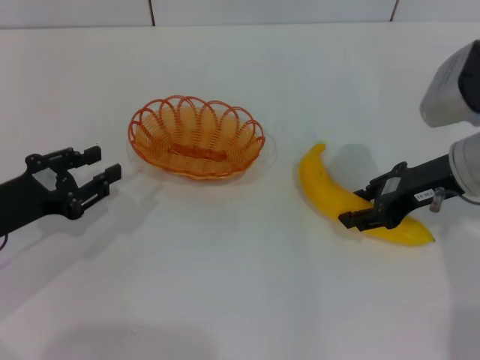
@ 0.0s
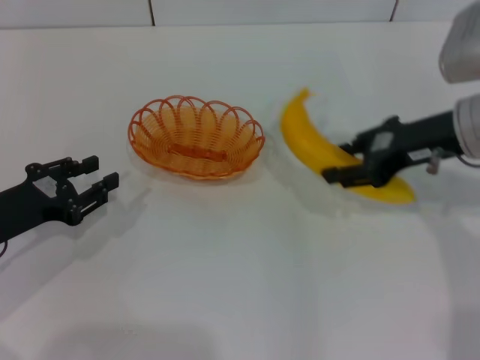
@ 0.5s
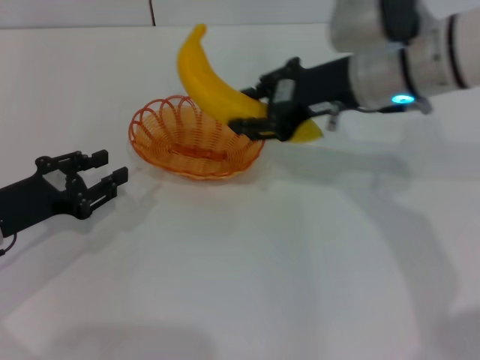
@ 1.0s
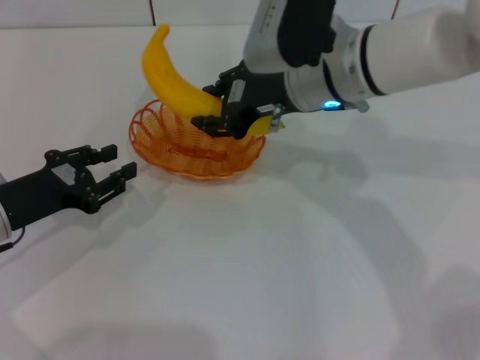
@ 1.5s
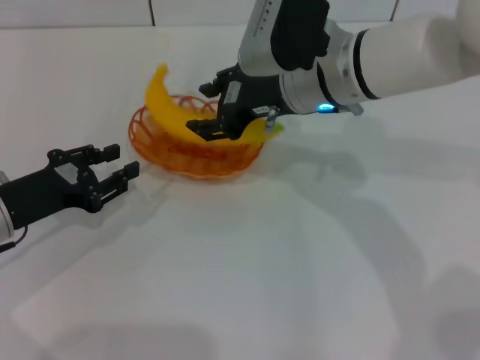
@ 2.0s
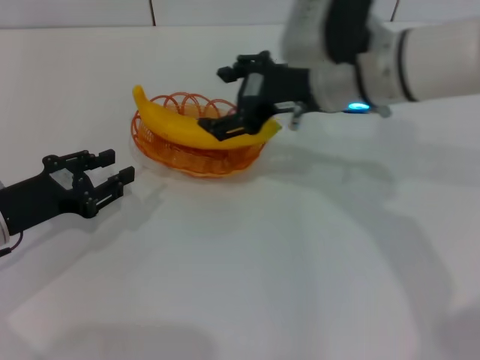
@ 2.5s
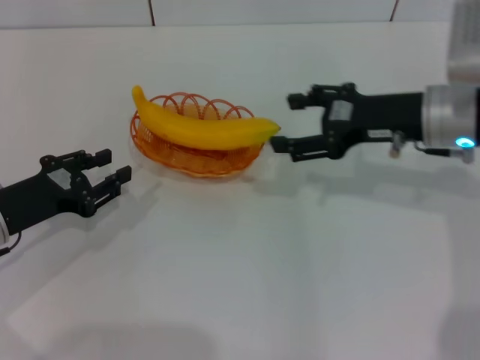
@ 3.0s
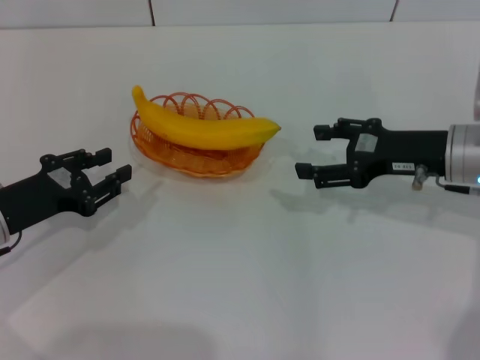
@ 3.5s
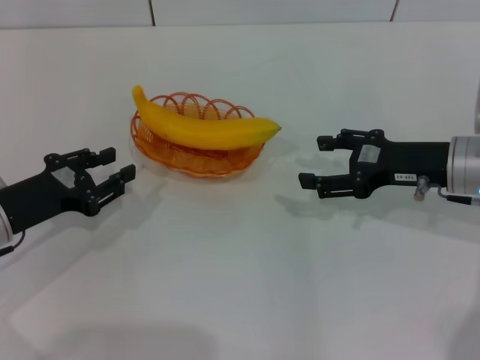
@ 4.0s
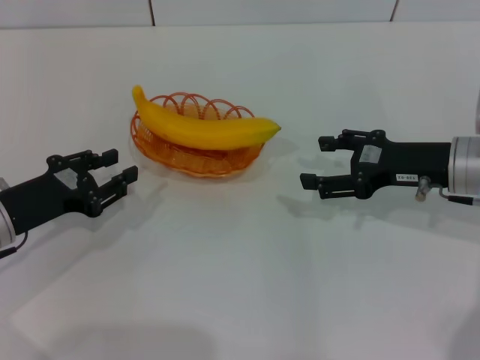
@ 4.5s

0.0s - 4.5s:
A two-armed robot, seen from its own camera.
Step, 0.5s - 2.0s: Place the banana into the basket with the right gripper.
0.0s - 2.0s: The right gripper travels to the left and forward by about 15 cm.
2.0s - 4.5s: The right gripper is displaced to the right, backward and downward by about 20 cm, and opens.

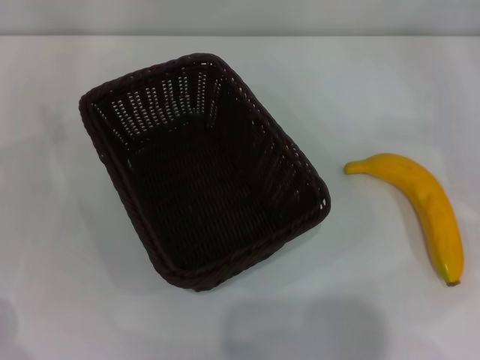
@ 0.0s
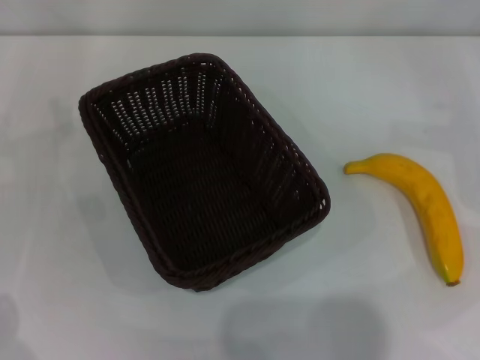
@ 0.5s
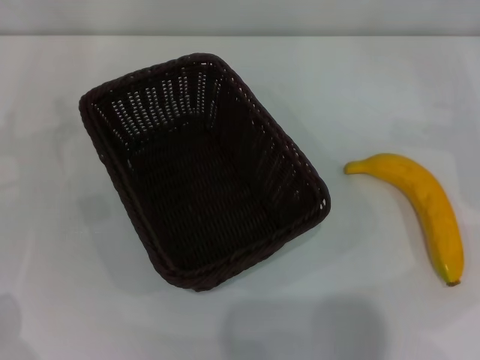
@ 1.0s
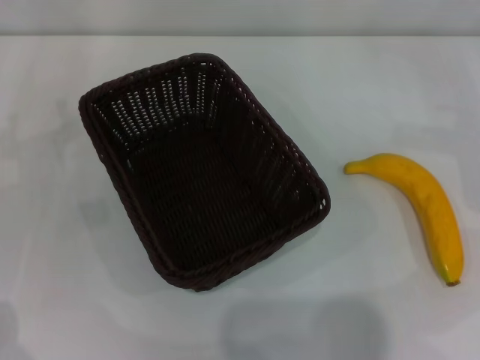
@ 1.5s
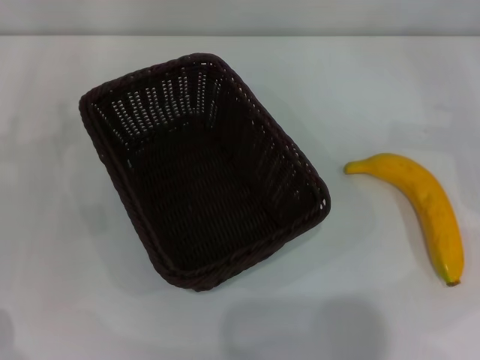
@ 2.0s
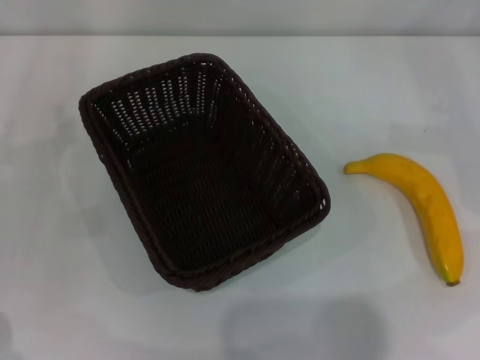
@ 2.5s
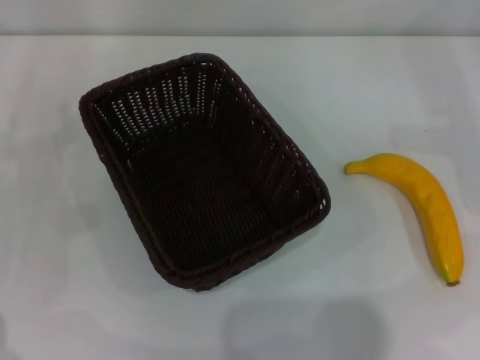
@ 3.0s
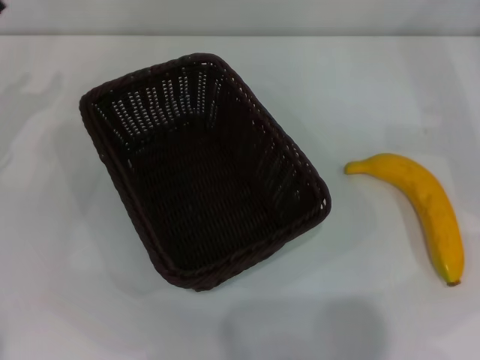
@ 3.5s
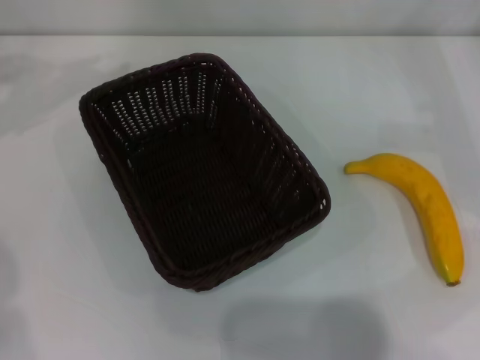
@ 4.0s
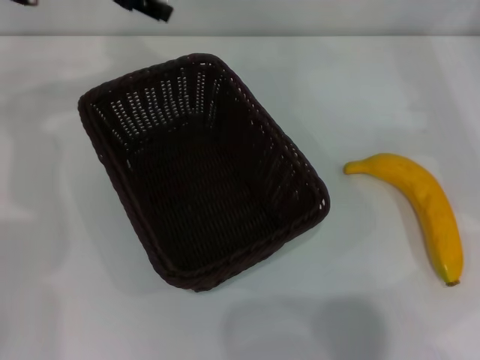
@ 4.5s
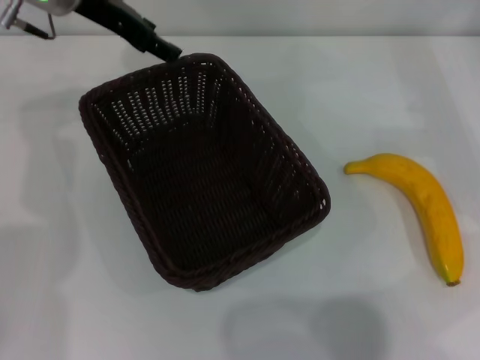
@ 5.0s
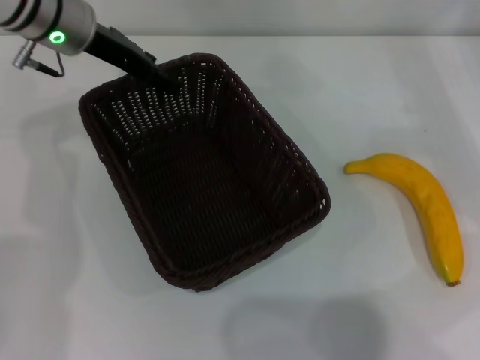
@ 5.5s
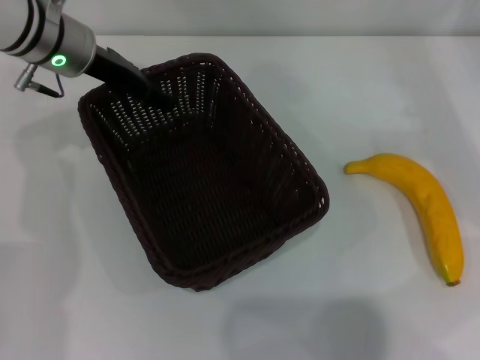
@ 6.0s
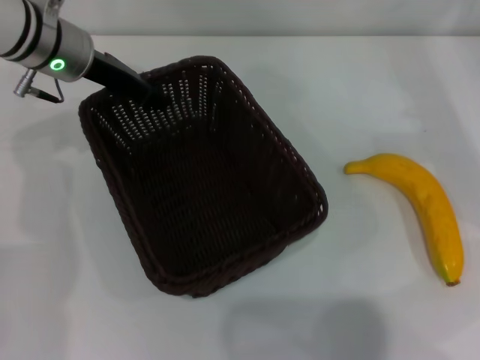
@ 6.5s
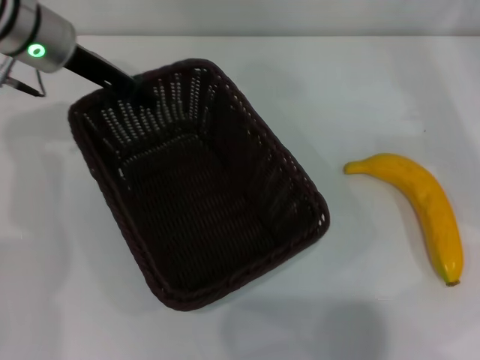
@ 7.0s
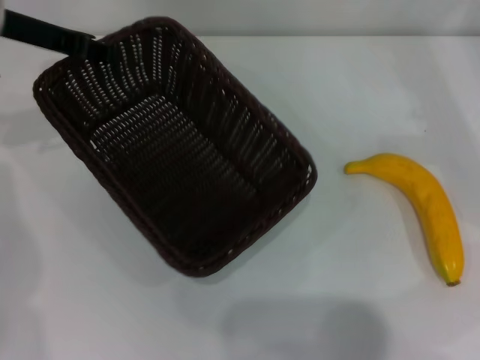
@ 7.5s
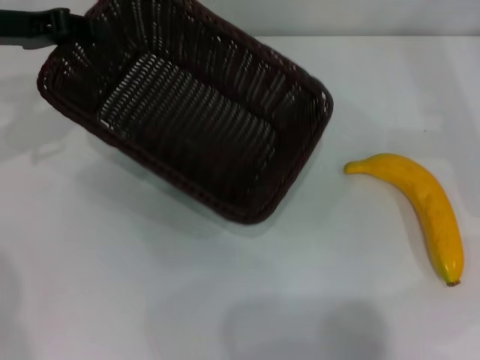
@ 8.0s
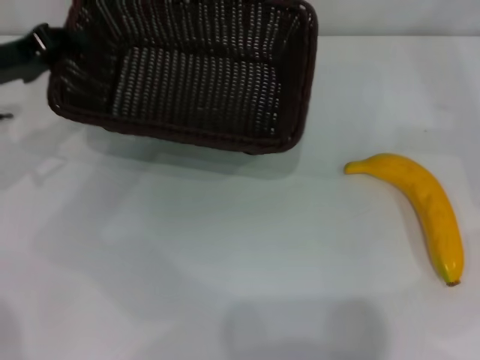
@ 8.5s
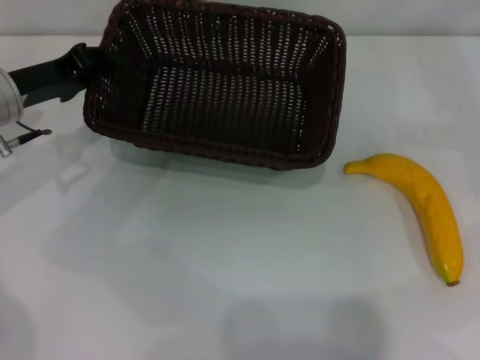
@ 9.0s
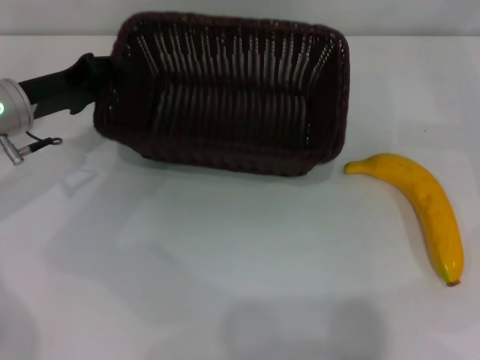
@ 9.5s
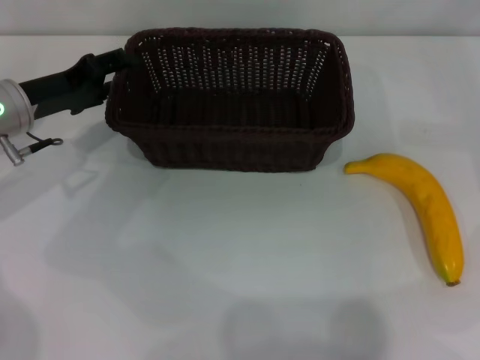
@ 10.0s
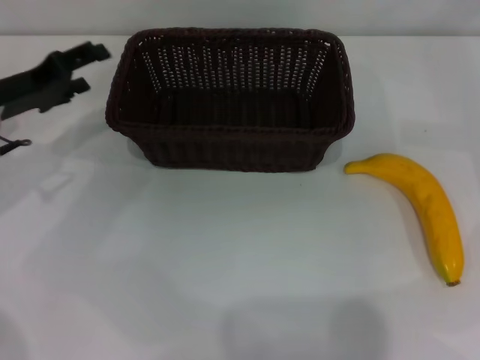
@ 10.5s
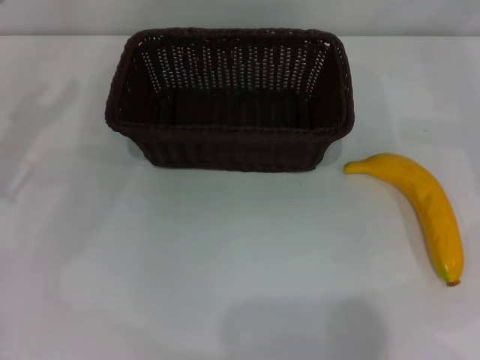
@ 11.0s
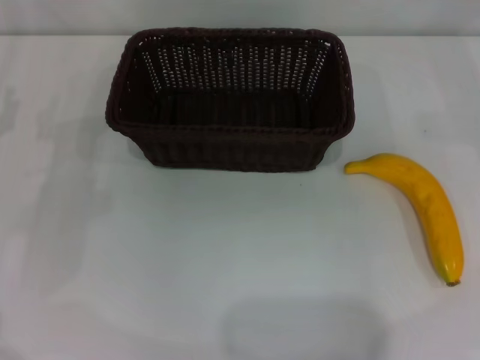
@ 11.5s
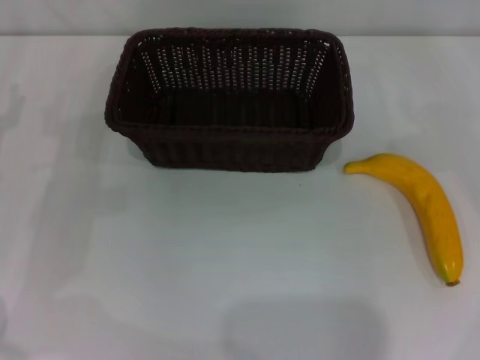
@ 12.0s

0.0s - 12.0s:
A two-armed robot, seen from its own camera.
Step, 0.0s - 7.5s: Pick up the dark basket with the left gripper.
Step, 8.0s - 10.5s: Place the dark basket in the center of view with the left gripper.
4.0s - 6.0s: The left gripper moves to the right and downward, roughly 15 cm.
6.0s - 8.0s: The left gripper moves to the left, roughly 10 cm, and closes.
8.0s - 10.0s: The right gripper moves some 5 cm. The left gripper moves downward, roughly 10 cm, and opens.
10.0s - 12.0s: The left gripper shifts roughly 10 cm to the left and backward, and opens.

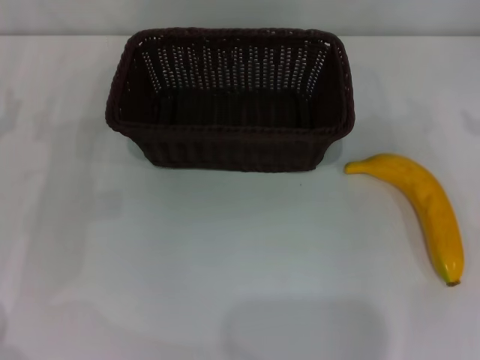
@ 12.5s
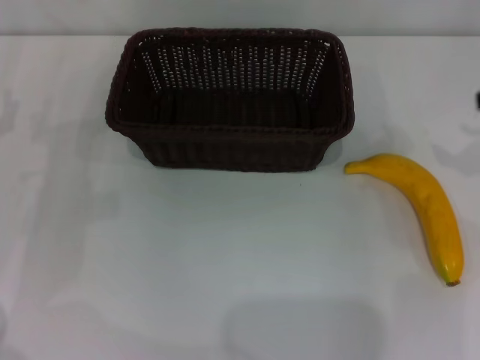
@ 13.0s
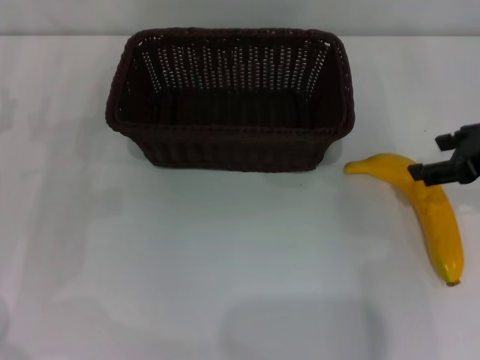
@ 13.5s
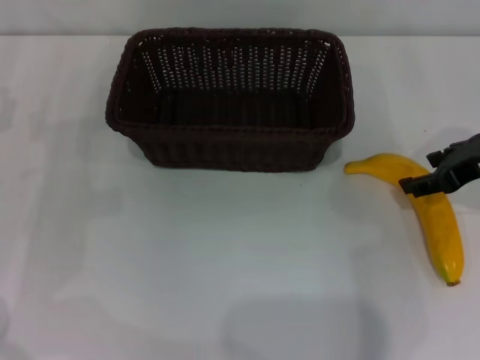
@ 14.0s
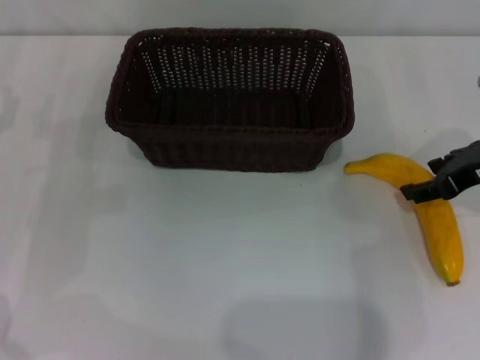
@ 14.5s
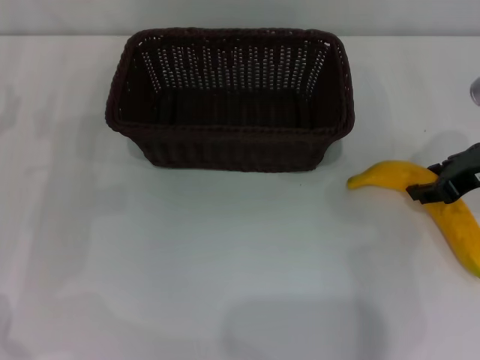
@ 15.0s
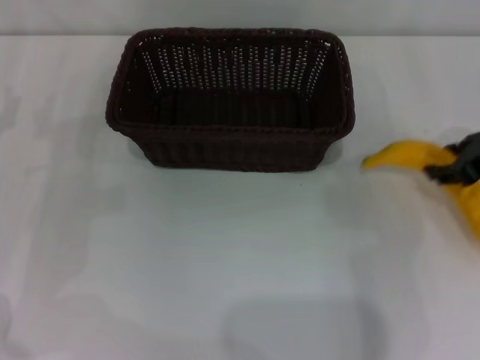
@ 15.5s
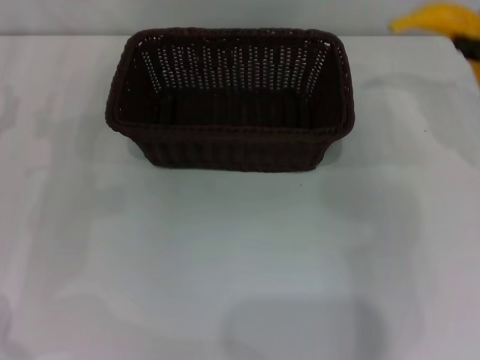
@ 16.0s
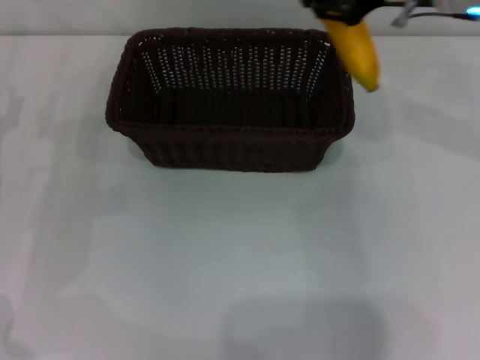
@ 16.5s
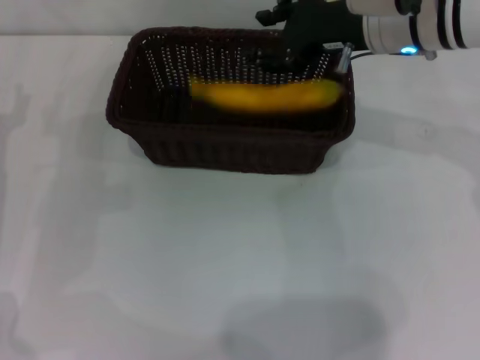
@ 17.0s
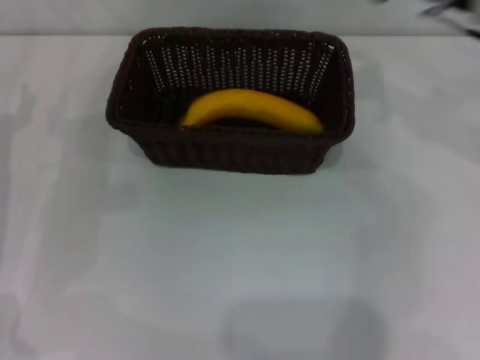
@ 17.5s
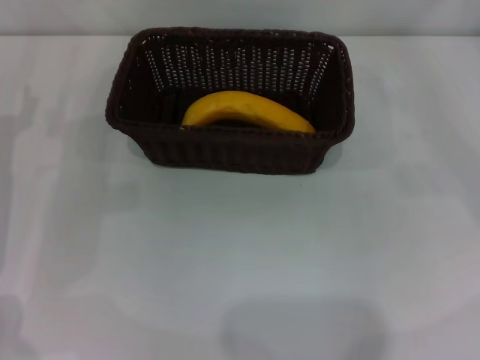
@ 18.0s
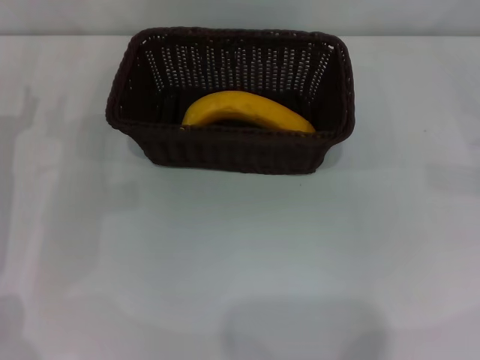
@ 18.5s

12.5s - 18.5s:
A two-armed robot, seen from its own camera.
Step, 12.5s - 15.5s: Pick up the banana with the right gripper.
Step, 16.0s - 17.0s: Place the banana into the dark basket with the right gripper.
12.5s - 14.5s: The right gripper is displaced to the left and downward by approximately 15 cm.
14.5s - 16.5s: The right gripper shifts about 15 cm upward, to the left and forward, and closes.
16.5s - 18.5s: The right gripper shifts some 25 cm to the right and downward, and opens up.
